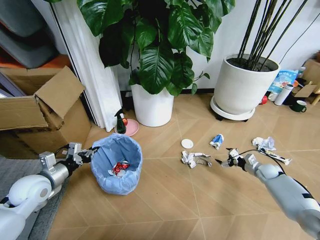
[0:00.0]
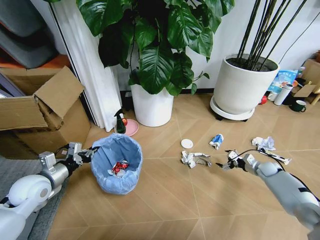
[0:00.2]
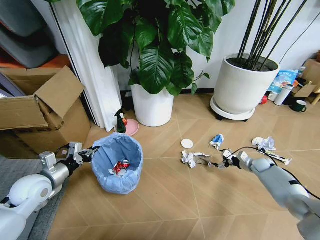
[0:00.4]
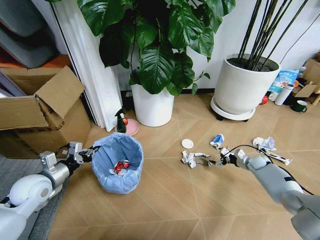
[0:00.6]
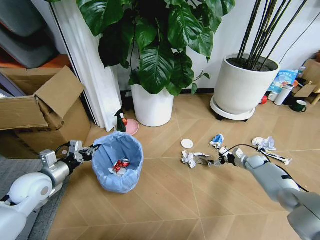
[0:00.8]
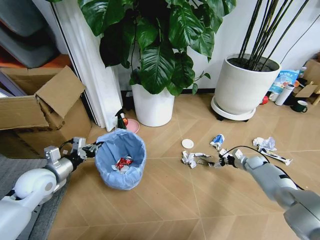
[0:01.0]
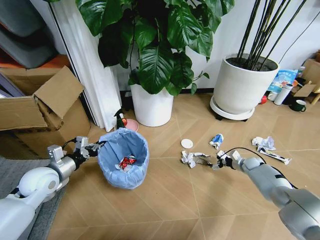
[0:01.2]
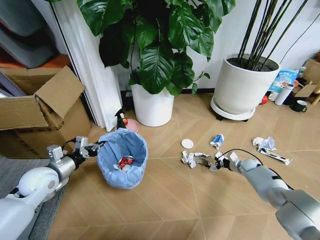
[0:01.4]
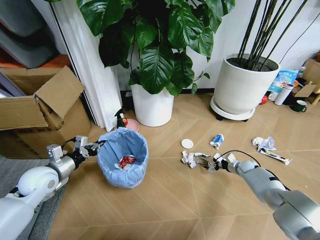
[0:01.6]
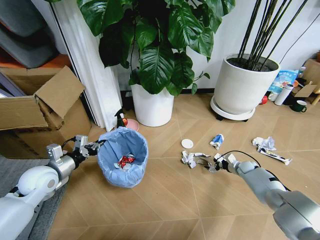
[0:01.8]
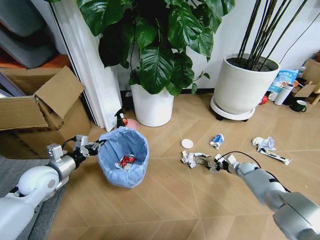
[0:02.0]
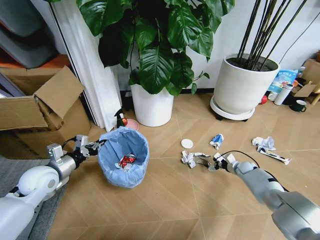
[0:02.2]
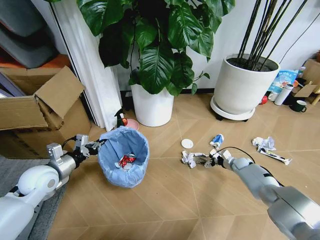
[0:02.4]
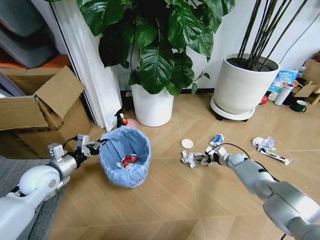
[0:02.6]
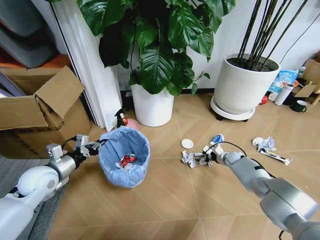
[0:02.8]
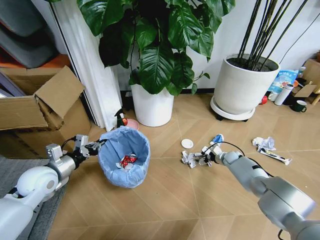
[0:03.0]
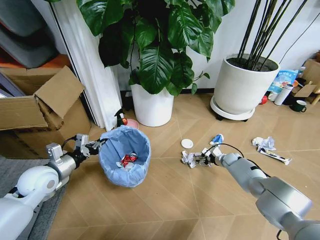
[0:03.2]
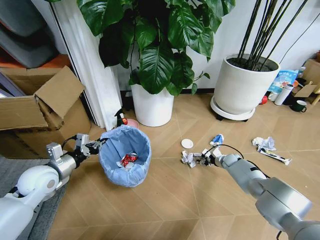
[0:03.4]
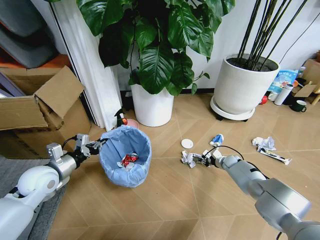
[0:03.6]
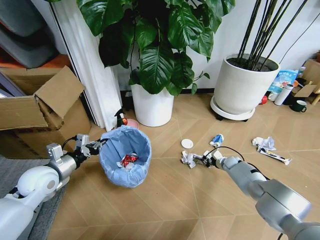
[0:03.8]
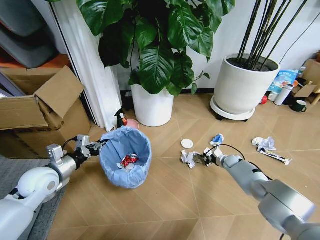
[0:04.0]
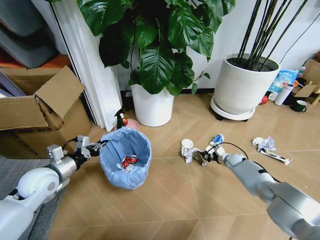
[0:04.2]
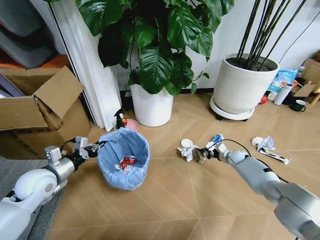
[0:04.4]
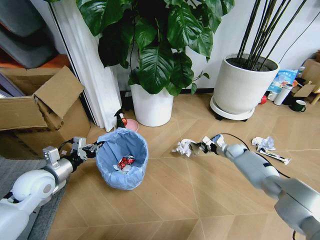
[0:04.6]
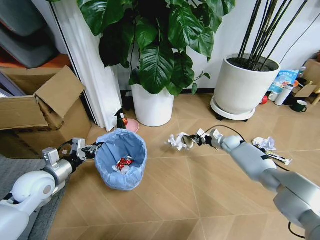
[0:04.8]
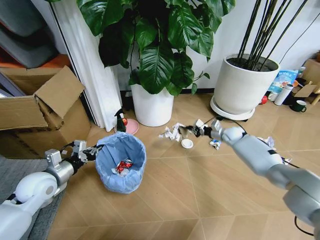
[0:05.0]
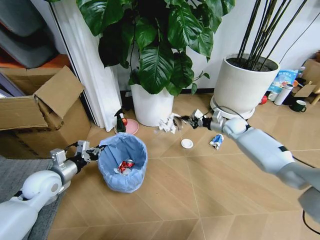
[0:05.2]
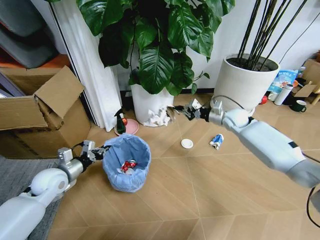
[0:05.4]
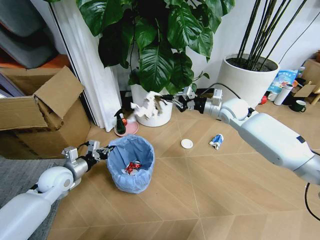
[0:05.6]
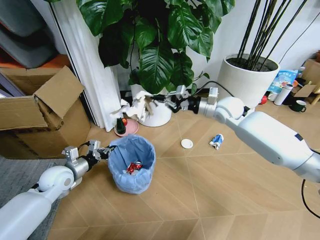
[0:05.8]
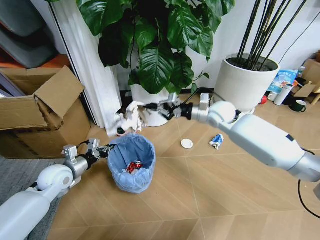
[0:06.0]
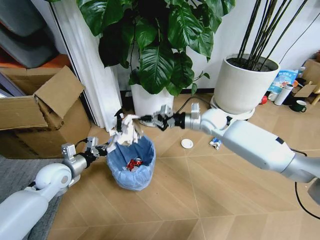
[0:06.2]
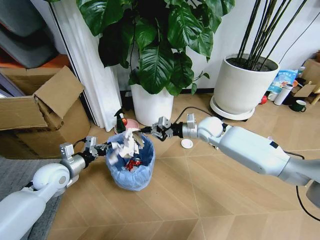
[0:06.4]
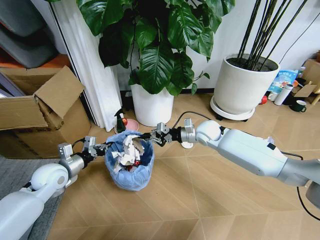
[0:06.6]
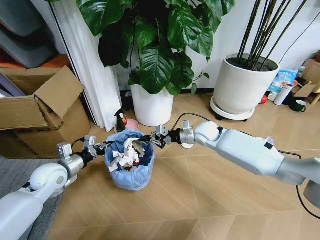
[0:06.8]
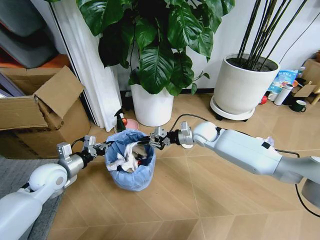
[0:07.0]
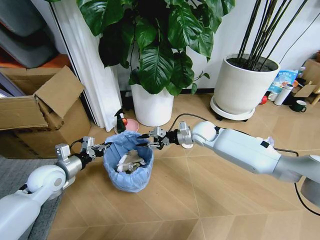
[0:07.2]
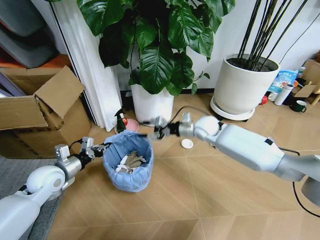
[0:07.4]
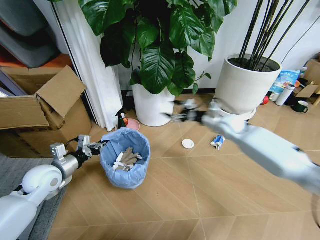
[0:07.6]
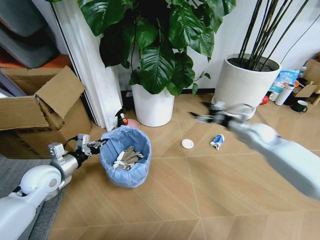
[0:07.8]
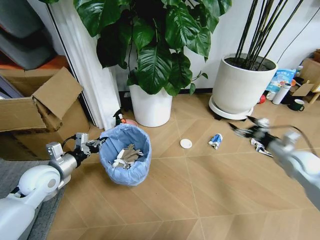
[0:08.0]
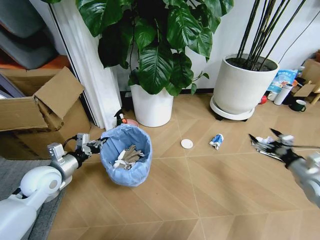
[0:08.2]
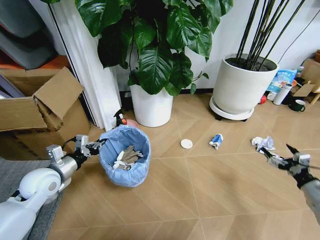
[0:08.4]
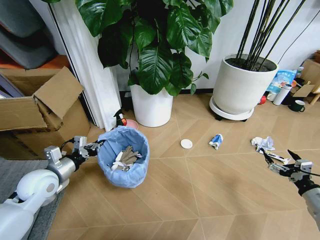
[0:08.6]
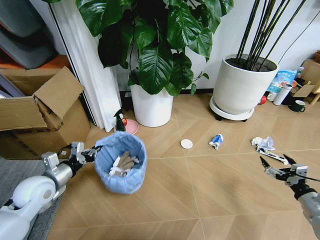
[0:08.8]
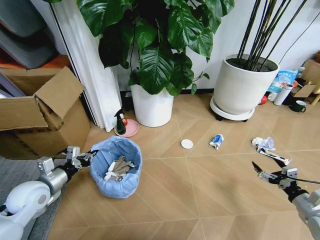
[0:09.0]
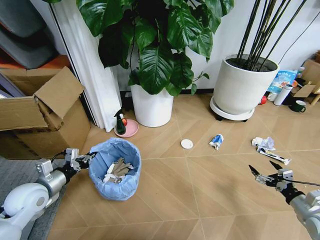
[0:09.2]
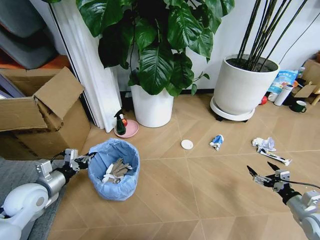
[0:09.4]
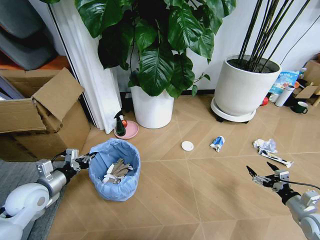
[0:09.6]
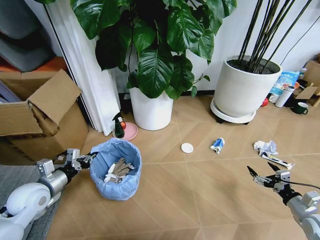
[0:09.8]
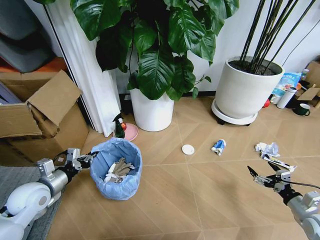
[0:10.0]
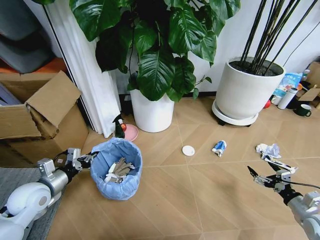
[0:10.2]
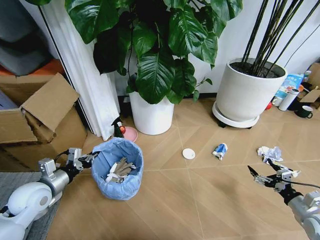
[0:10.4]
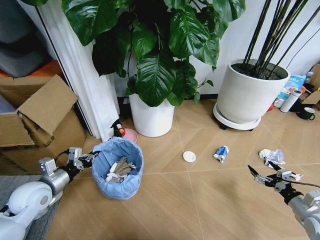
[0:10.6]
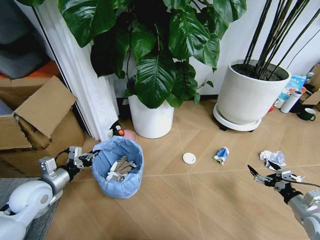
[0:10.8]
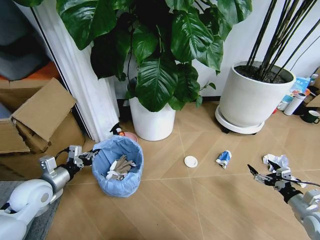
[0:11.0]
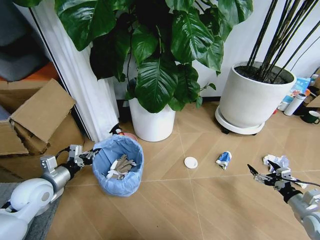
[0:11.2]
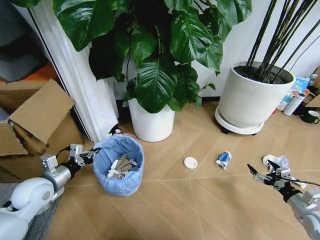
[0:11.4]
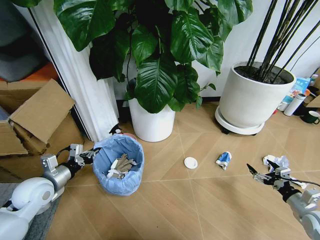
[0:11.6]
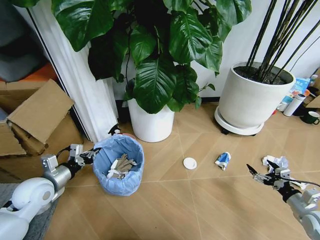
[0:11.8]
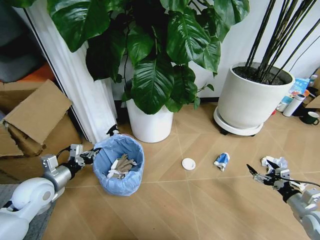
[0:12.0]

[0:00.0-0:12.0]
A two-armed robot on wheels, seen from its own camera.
Task of the whole recording: Pick up the trash bin and place the garbage on the floor into it.
0:00.0 to 0:01.6: The right gripper travels to the left by roughly 5 cm.
0:01.6 to 0:03.0: The right gripper travels to the left by roughly 5 cm.
0:03.0 to 0:04.4: The right gripper closes.
0:04.4 to 0:06.0: The right gripper moves upward and to the left, roughly 35 cm. Meanwhile the left gripper ends up roughly 5 cm from where it was.
0:06.0 to 0:07.6: The right gripper is displaced downward by roughly 5 cm, and opens up.
0:07.6 to 0:09.0: The right gripper travels backward, to the right and downward by roughly 40 cm; the left gripper ends up about 5 cm from where it was.

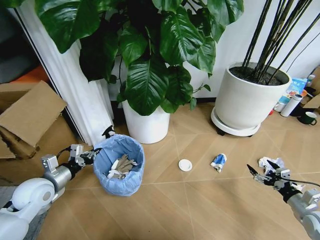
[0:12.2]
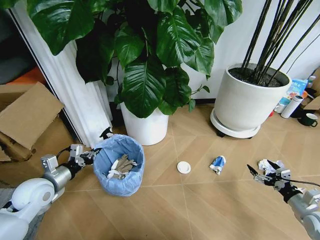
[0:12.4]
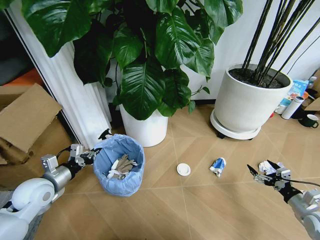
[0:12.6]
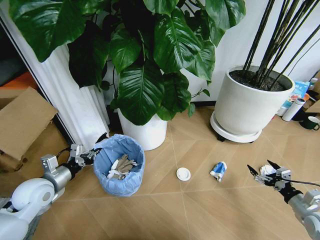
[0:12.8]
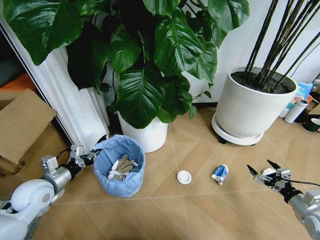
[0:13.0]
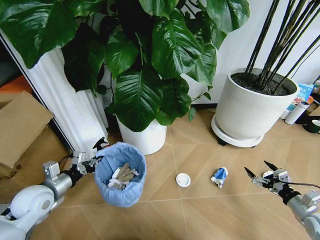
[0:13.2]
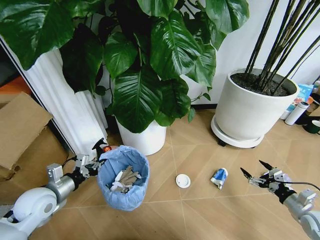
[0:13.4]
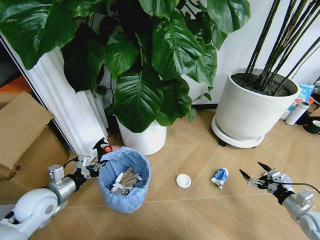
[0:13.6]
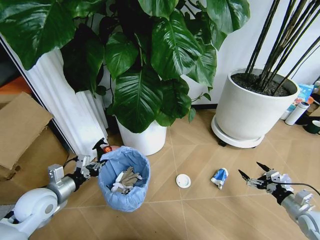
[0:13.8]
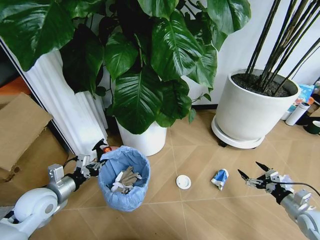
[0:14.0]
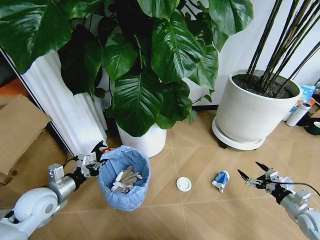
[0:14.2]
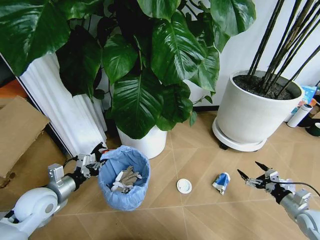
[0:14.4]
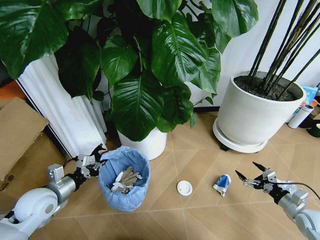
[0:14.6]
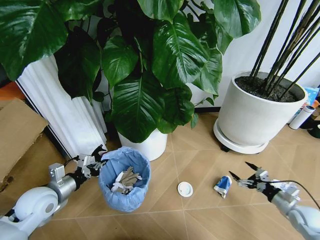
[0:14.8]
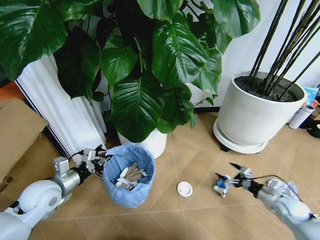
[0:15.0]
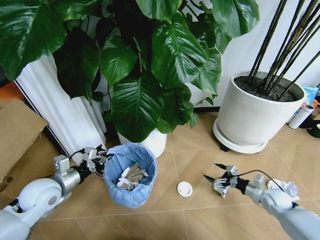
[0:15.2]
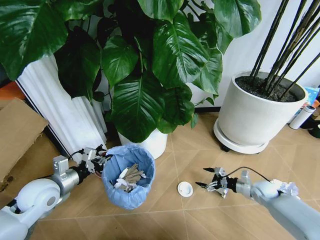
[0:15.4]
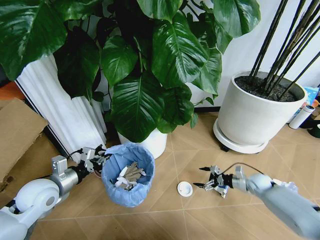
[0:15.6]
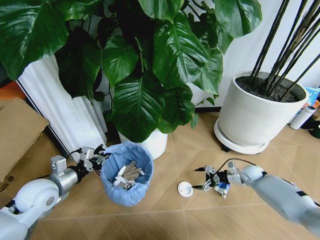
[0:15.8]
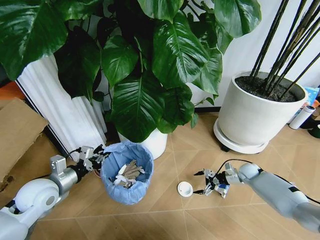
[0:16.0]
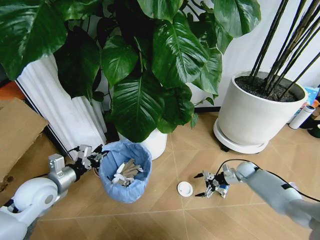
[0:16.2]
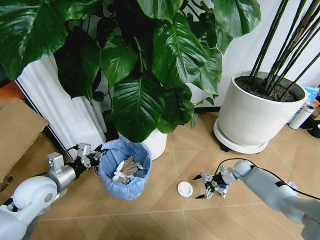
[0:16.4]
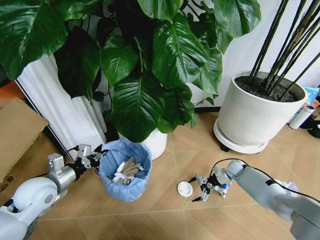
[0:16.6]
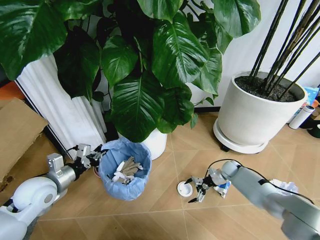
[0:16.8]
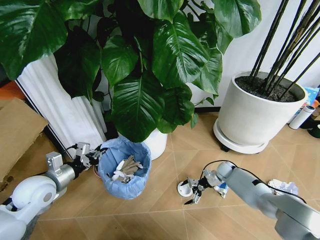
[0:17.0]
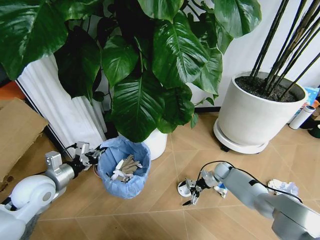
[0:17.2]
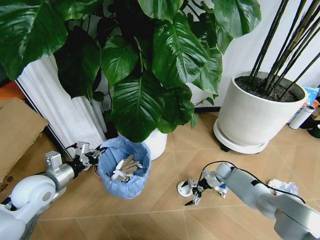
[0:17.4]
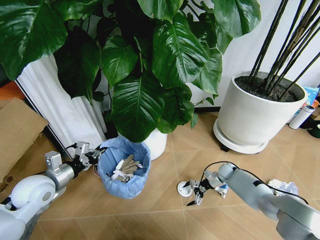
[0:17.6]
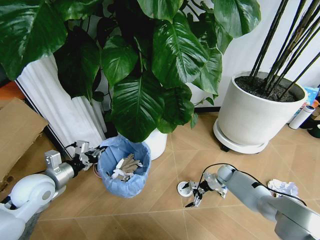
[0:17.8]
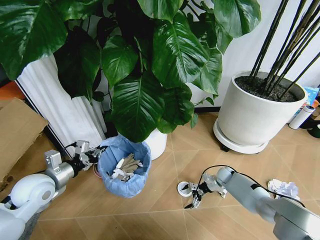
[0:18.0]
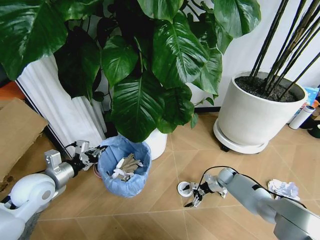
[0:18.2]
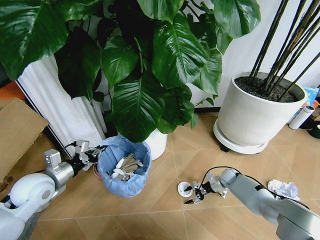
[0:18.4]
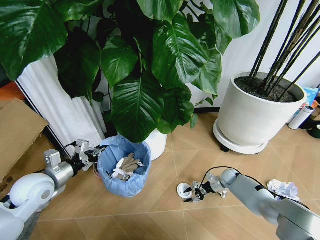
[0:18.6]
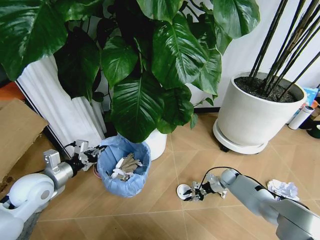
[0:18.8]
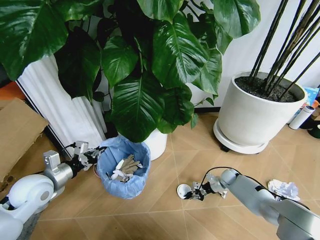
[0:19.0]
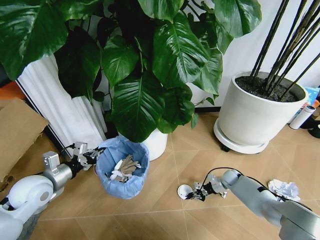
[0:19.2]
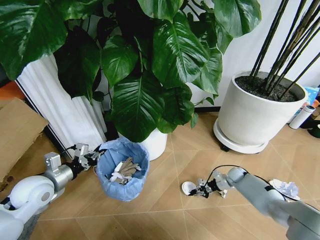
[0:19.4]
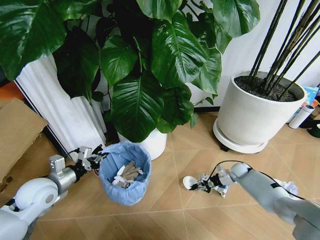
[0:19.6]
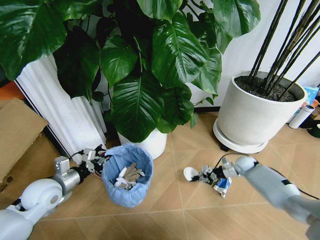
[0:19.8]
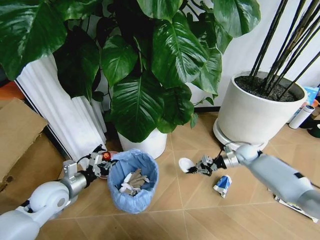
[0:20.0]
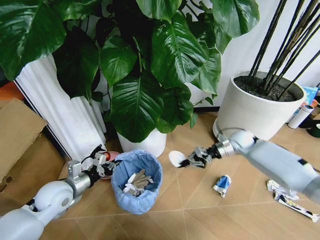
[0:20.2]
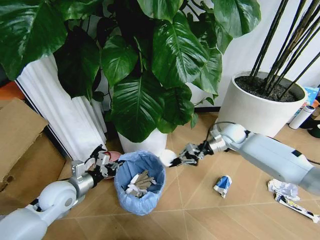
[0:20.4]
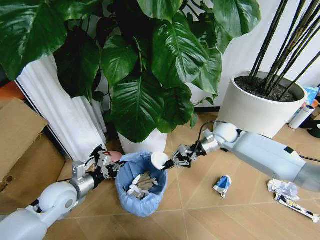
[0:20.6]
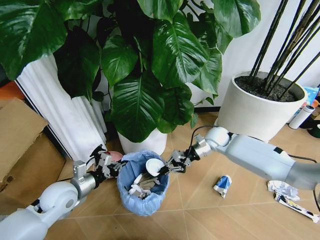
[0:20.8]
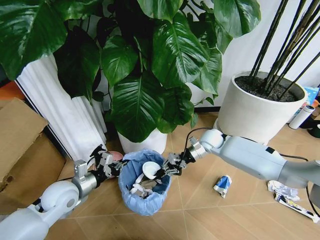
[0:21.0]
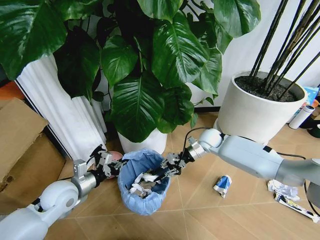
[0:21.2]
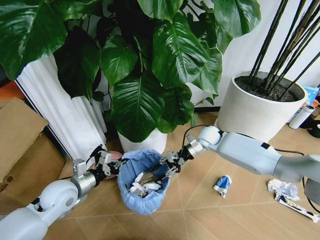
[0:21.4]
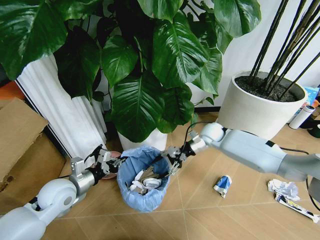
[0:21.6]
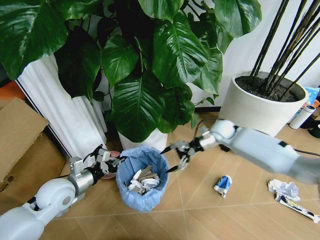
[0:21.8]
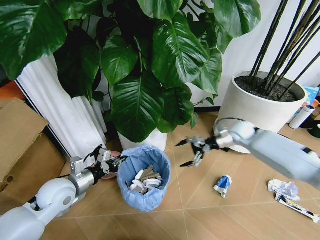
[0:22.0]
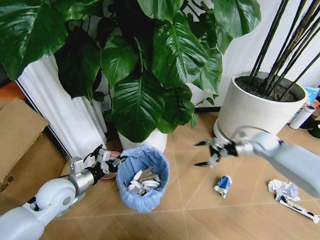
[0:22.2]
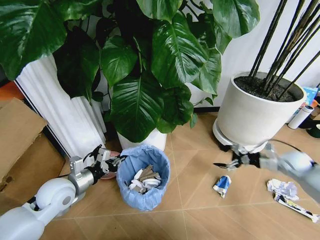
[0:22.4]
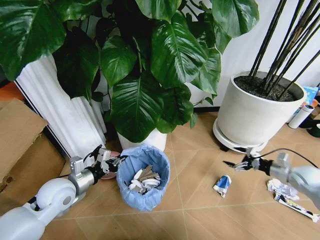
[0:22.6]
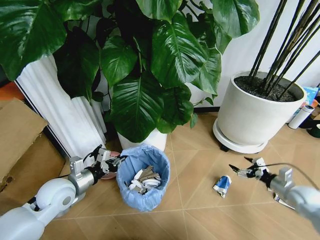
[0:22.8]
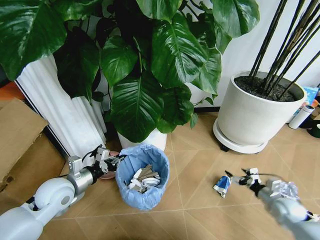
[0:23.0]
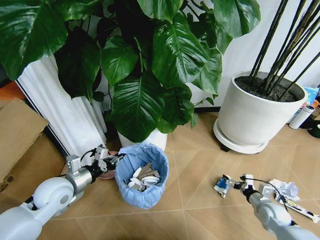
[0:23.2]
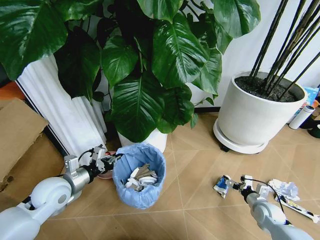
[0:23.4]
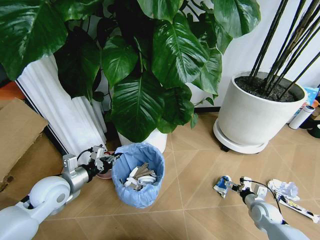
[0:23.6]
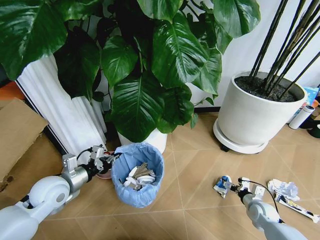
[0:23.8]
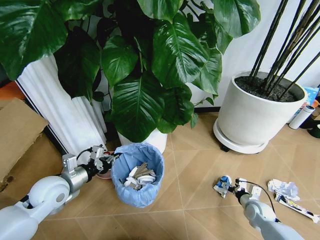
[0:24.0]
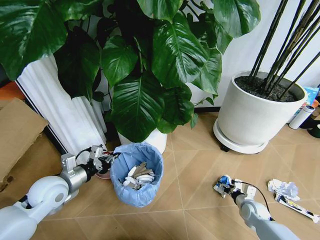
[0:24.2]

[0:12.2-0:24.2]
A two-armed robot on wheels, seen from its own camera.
Task of the whole recording: Pick up the trash bin and place the garbage on the floor into it.
0:13.8 to 0:15.2: The right gripper goes roughly 10 cm forward and to the left.
0:15.2 to 0:16.6: The right gripper moves forward and to the left, roughly 20 cm.
0:16.6 to 0:18.2: The right gripper moves roughly 5 cm.
0:18.2 to 0:19.8: The right gripper heads upward and to the right, covering some 10 cm, and closes up.
0:19.8 to 0:21.2: The right gripper goes roughly 25 cm to the left and upward.
0:21.2 to 0:22.6: The right gripper is displaced to the right and backward by some 35 cm, and opens up.
0:22.6 to 0:24.2: The right gripper travels downward and to the left by some 25 cm.
